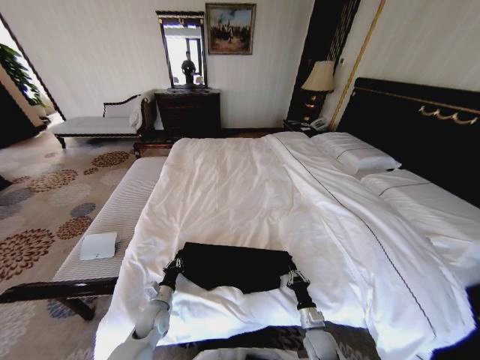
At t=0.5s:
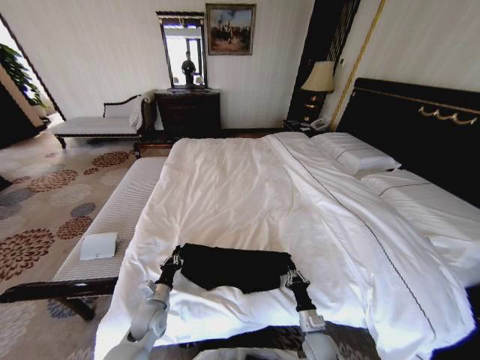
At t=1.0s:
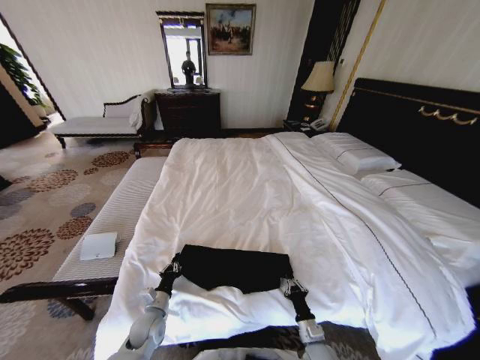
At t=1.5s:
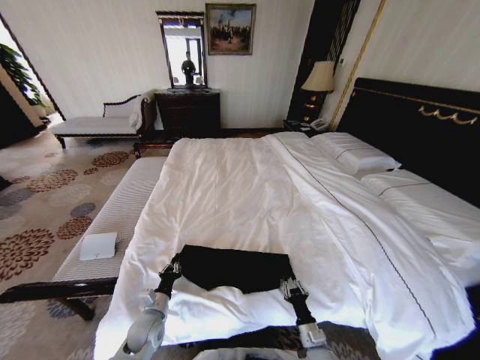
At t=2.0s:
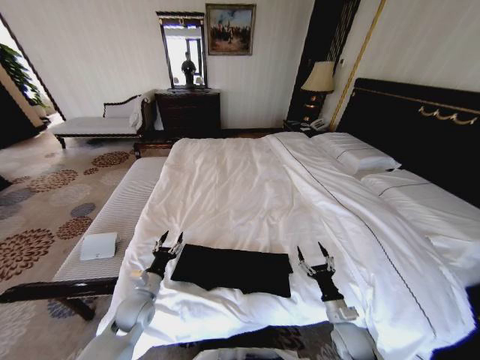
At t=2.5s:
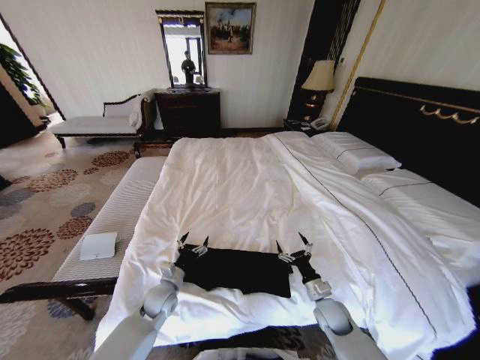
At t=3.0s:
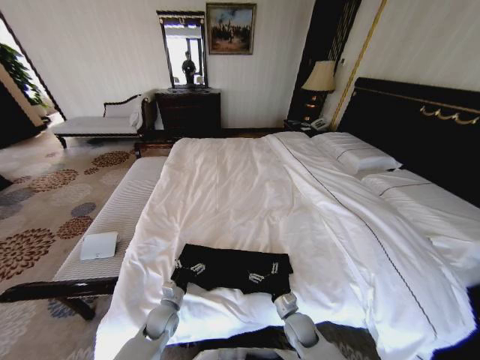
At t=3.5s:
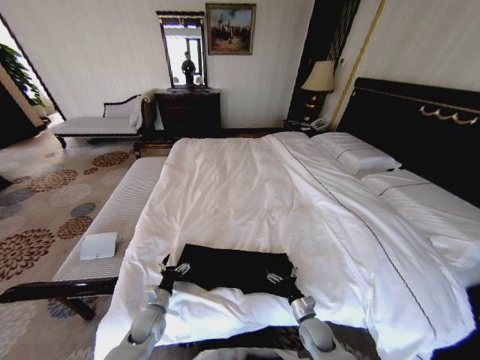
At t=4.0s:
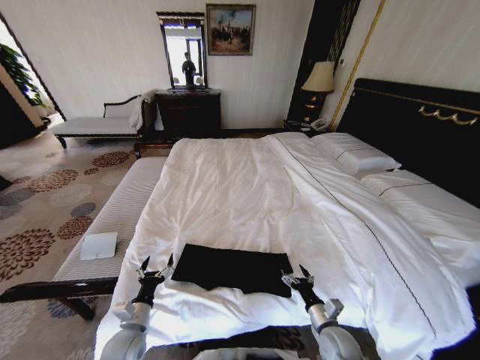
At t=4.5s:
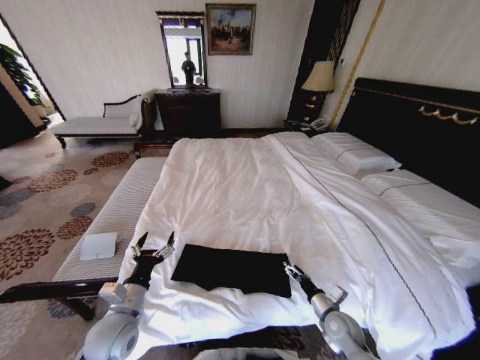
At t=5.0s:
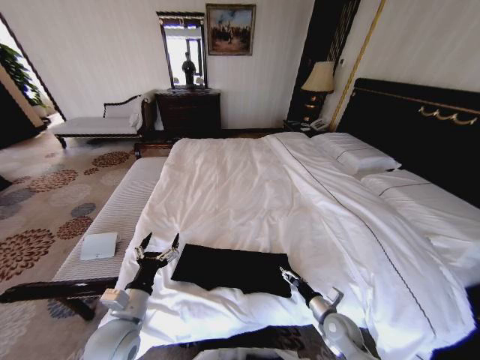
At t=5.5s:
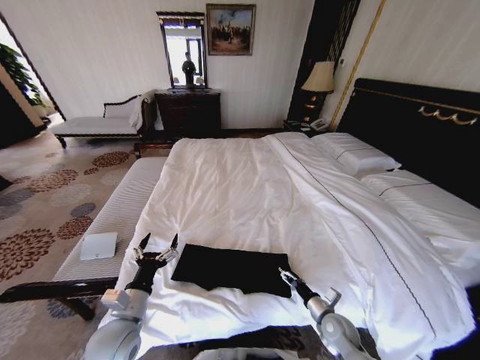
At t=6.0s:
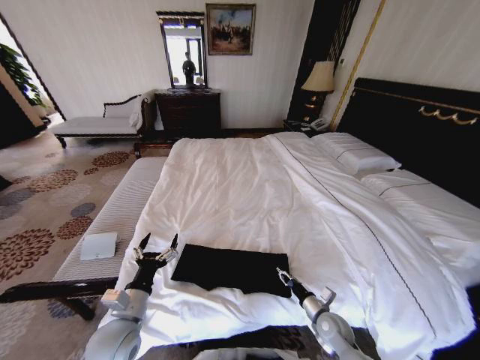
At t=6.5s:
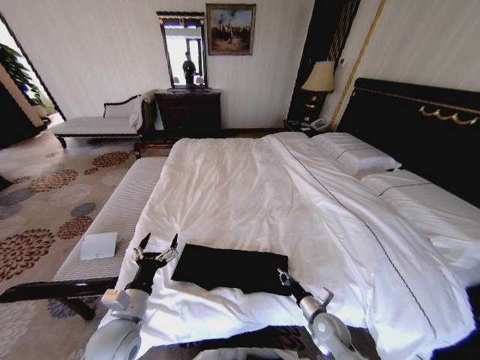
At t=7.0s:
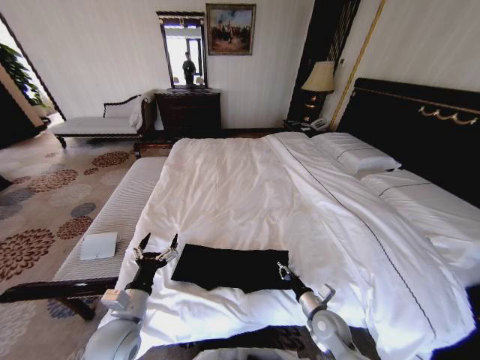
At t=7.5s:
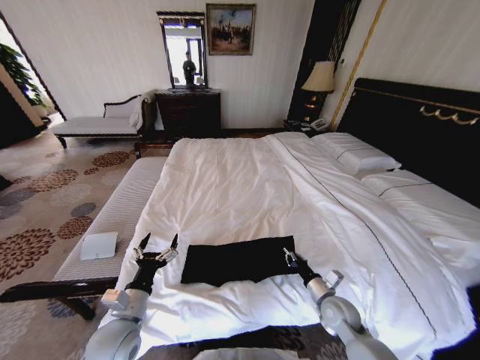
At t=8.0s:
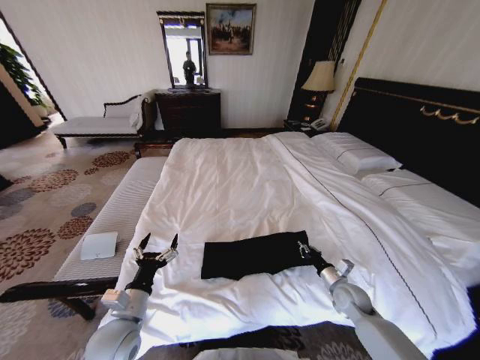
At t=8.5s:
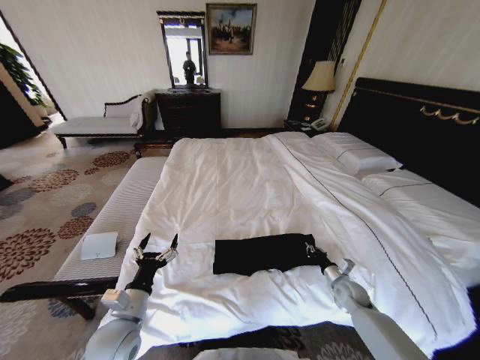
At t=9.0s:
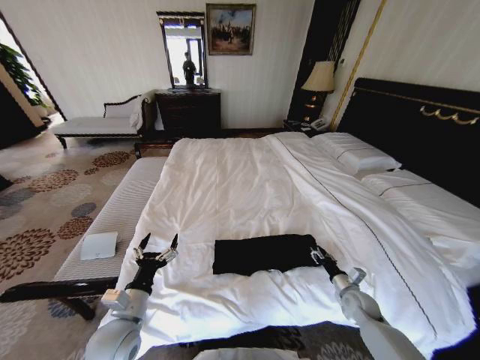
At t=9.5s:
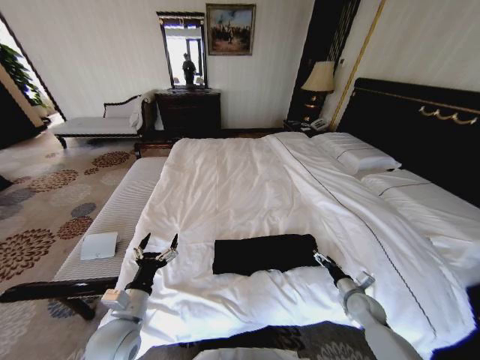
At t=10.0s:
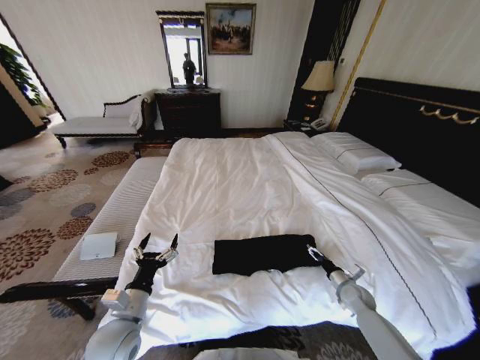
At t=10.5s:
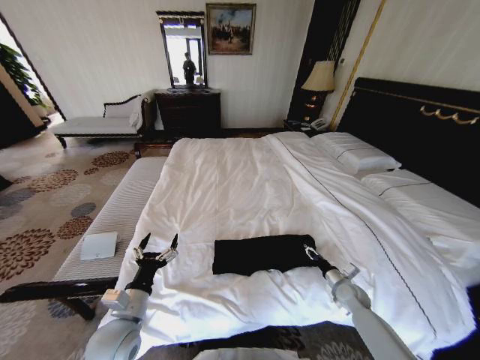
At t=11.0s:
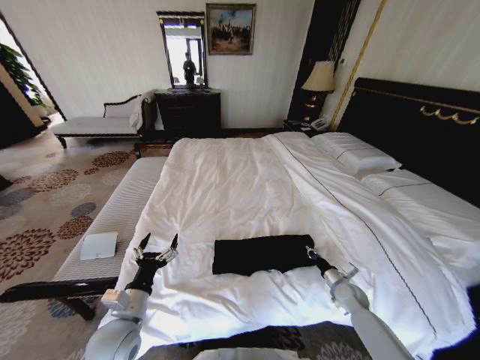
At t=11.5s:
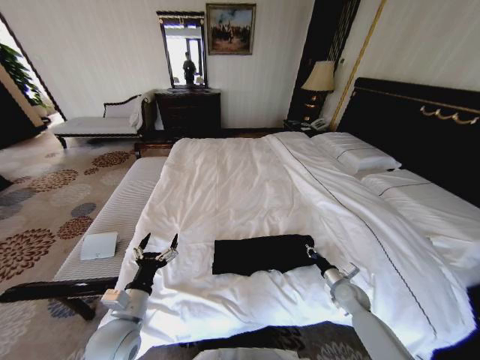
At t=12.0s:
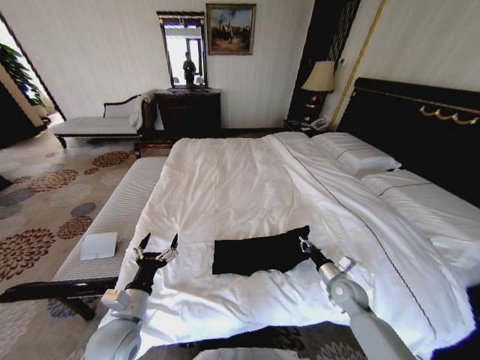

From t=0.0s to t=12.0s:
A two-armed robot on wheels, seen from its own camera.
Task of the whole recording: Fold the clothes on the bed.
From t=0.0s to t=2.0s: The left gripper heads upward, covering some 10 cm, and opens its fingers; the right gripper travels upward and to the right by roughly 10 cm, and opens up.
From t=2.0s to t=4.0s: The left gripper heads backward, covering approximately 5 cm, and opens up, while the right gripper reaches approximately 10 cm to the left, then returns.
From t=4.0s to t=6.0s: The left gripper is displaced upward by some 10 cm, while the right gripper closes.
From t=6.0s to t=8.0s: The right gripper goes approximately 10 cm forward, to the right and upward, and closes its fingers.
From t=8.0s to t=10.0s: The right gripper moves to the right and downward, approximately 10 cm, and opens.
From t=10.0s to t=12.0s: The right gripper heads to the left and upward, covering some 10 cm, and closes its fingers.

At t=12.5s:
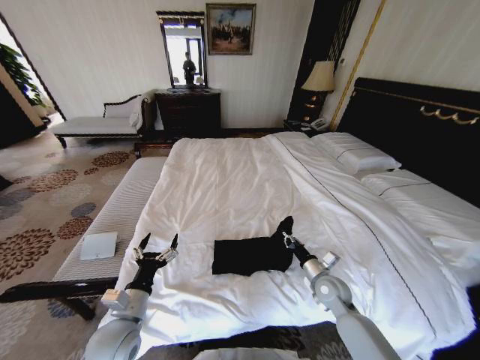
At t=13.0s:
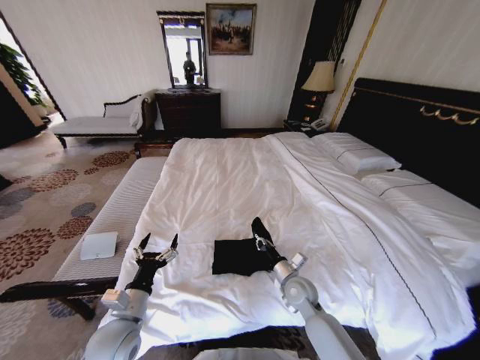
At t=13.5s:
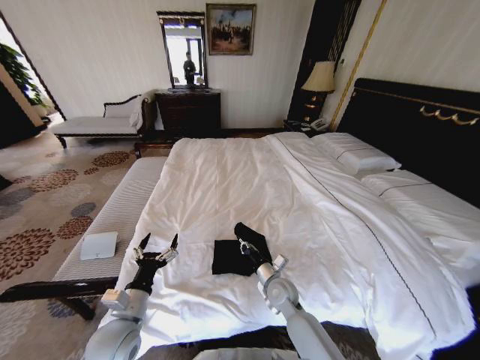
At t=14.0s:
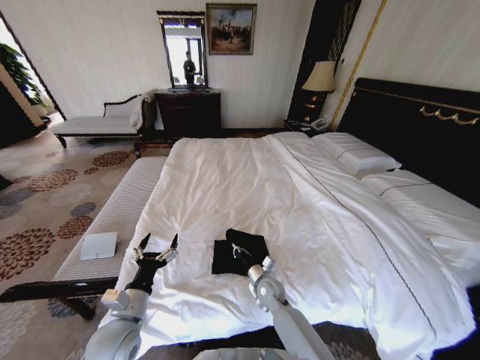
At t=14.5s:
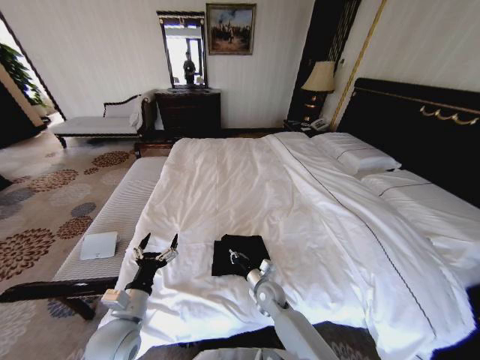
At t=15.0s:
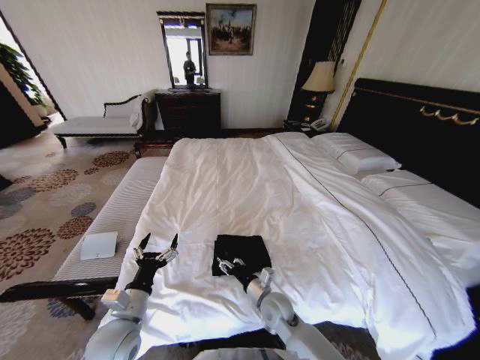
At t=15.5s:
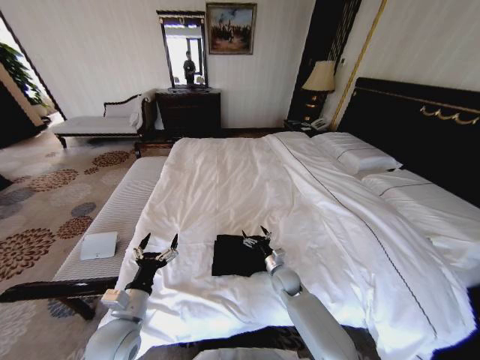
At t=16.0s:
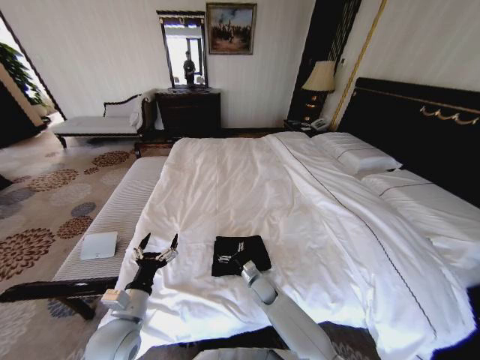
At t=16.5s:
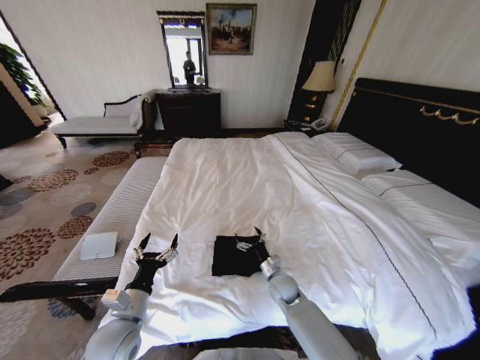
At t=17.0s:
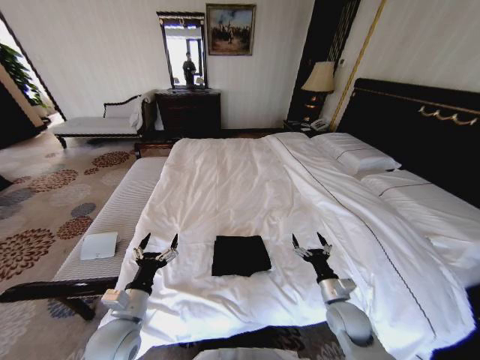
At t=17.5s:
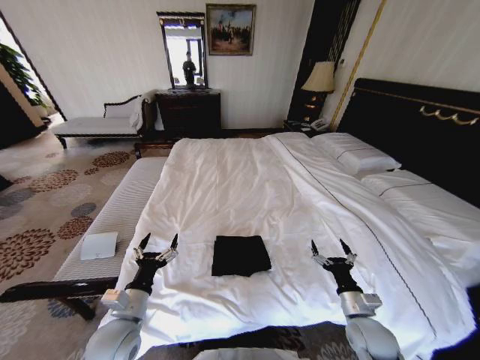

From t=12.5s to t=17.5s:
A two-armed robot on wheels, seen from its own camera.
Task of the whole recording: Fold the clothes on the bed.
From t=12.5s to t=15.0s: The right gripper travels to the left by roughly 20 cm, and opens up.
From t=15.0s to t=17.5s: The right gripper moves left and right over about 25 cm, changing direction 2 times, and opens its fingers.
